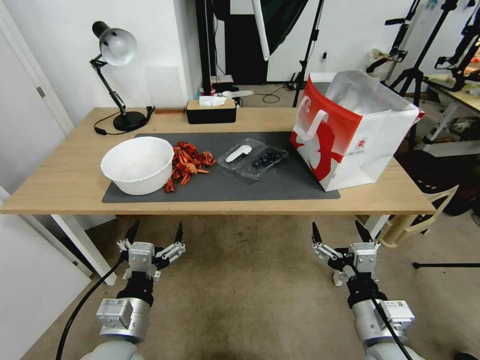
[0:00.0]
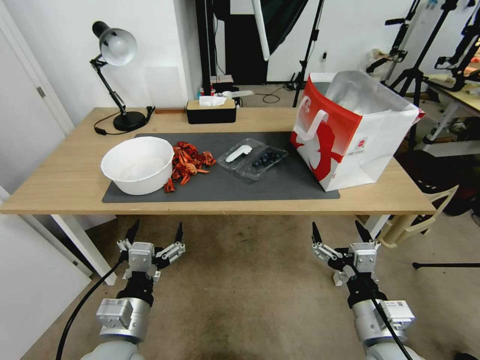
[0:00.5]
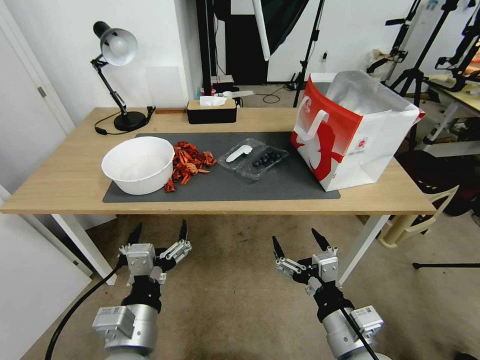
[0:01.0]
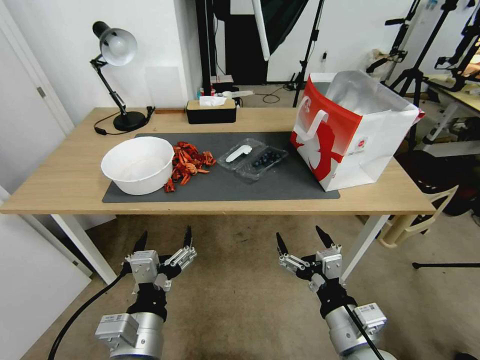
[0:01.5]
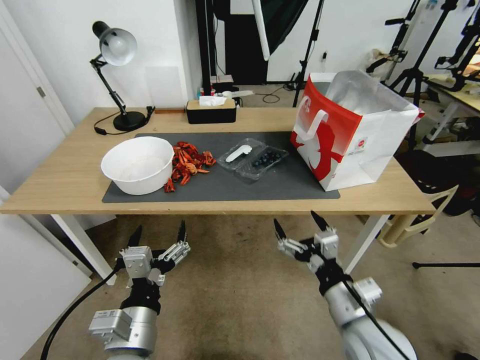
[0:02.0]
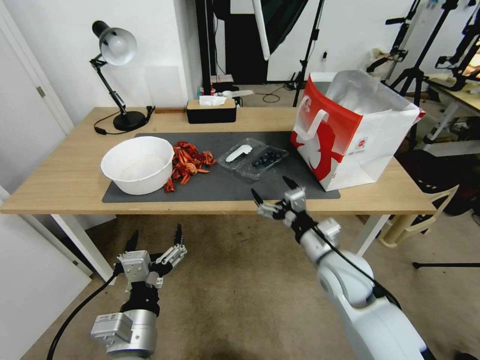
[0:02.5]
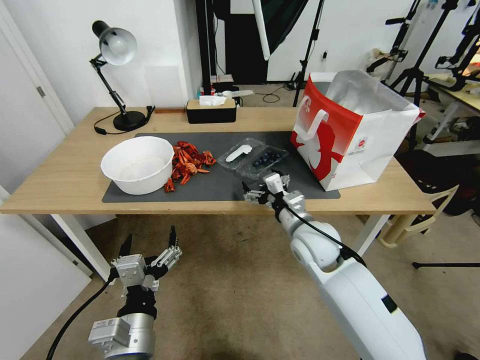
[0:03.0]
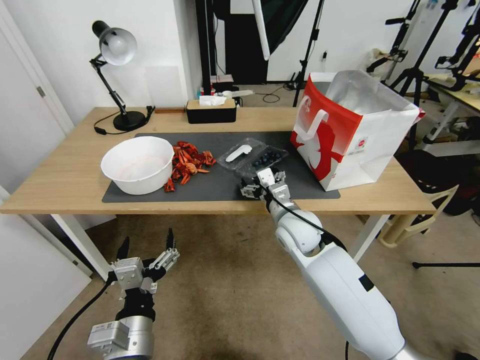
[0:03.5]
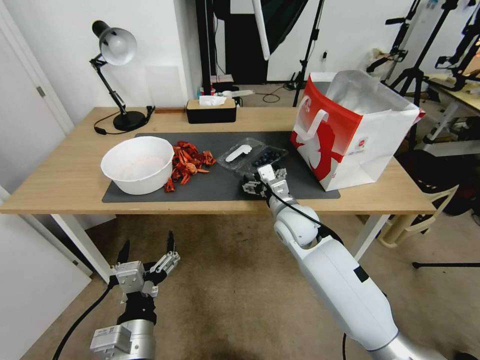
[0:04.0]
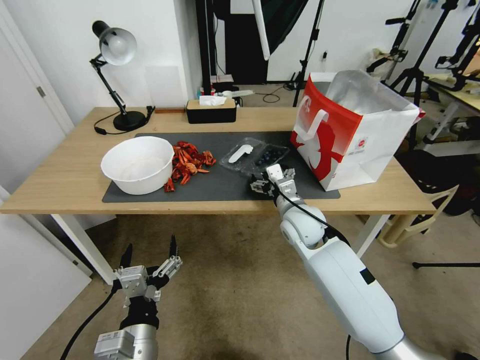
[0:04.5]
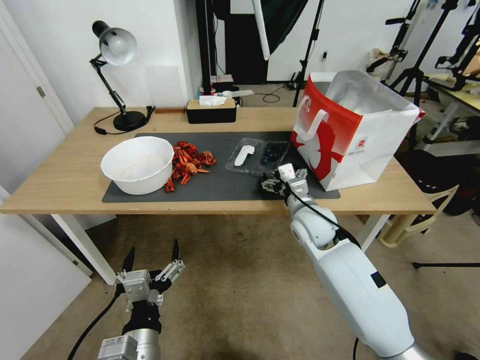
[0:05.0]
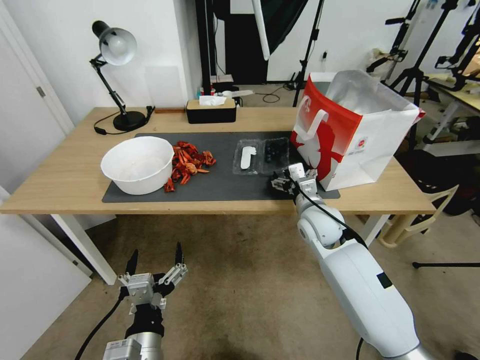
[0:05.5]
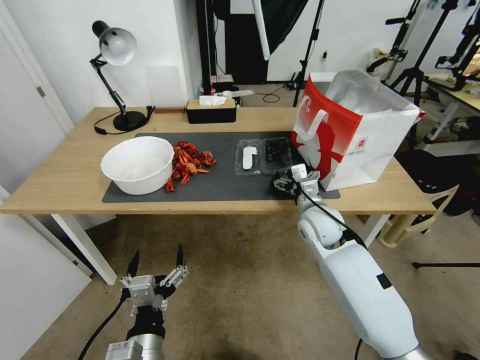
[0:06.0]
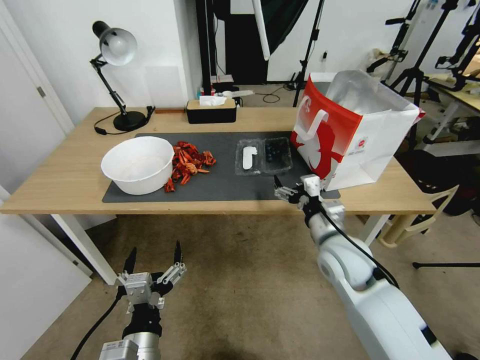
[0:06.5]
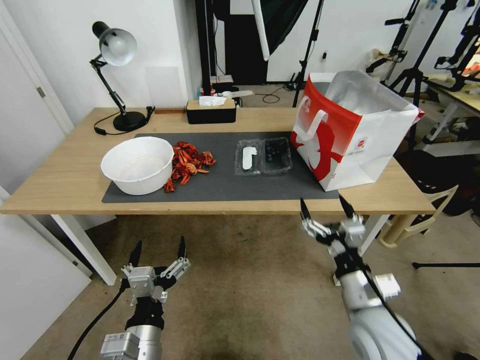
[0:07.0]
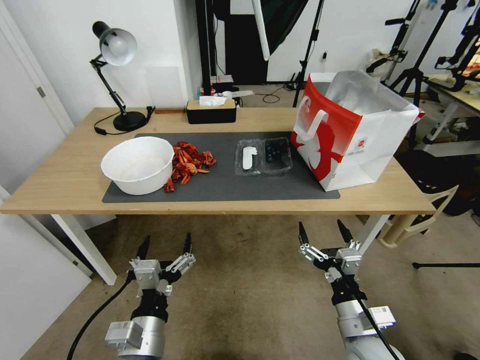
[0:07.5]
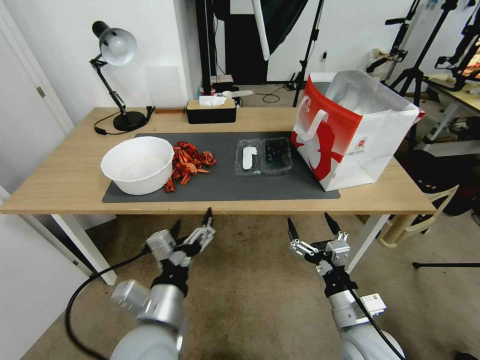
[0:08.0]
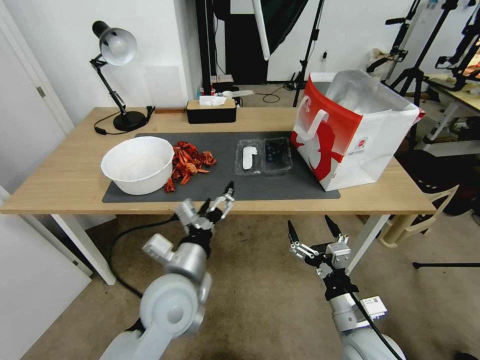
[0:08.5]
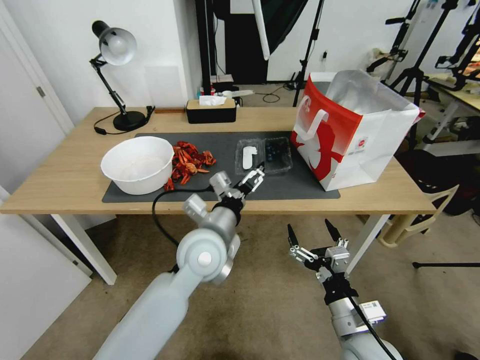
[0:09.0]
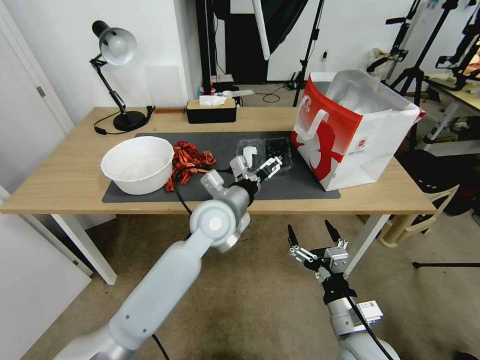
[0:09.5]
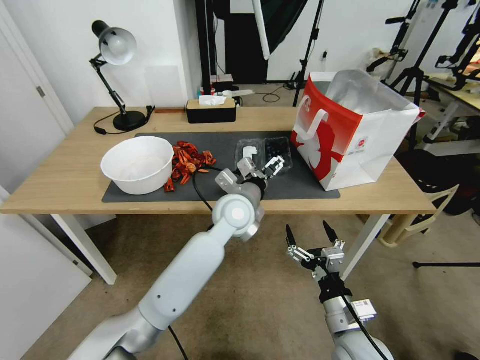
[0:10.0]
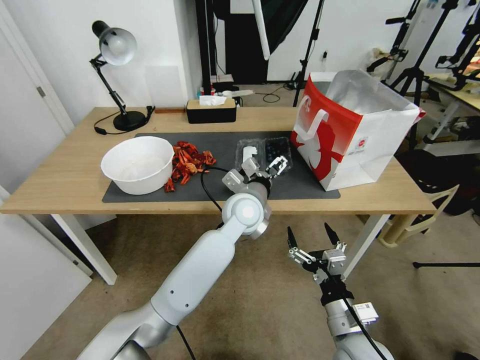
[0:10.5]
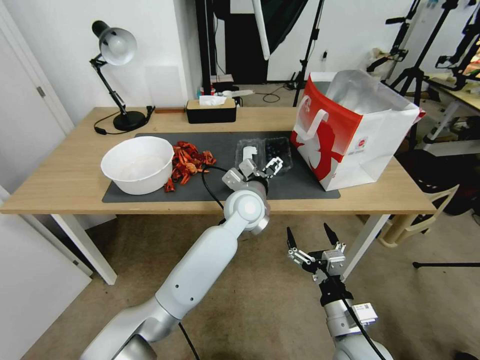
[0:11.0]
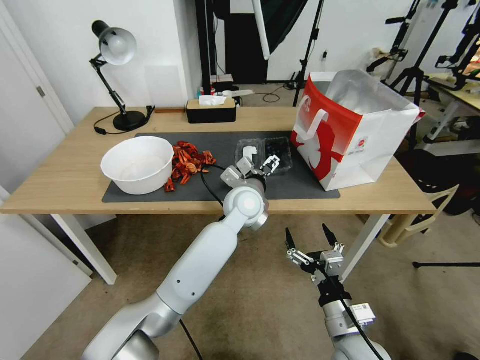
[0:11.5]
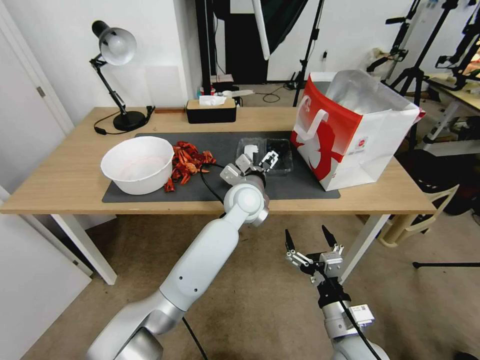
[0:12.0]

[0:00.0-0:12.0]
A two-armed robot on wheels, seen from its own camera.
Task of the whole recording: Close the takeout container lid, then place the container into the takeout bag.
0:02.0 to 0:04.0: The right gripper shifts roughly 25 cm forward.
0:04.0 to 0:06.0: The right gripper moves to the right, some 5 cm.
0:06.0 to 0:08.0: The right gripper shifts approximately 25 cm backward, while the left gripper shifts approximately 10 cm upward and forward.
0:08.0 to 0:10.0: The left gripper heads forward and to the right, covering approximately 30 cm.
0:10.0 to 0:12.0: There are only small adjustments of the grippers.

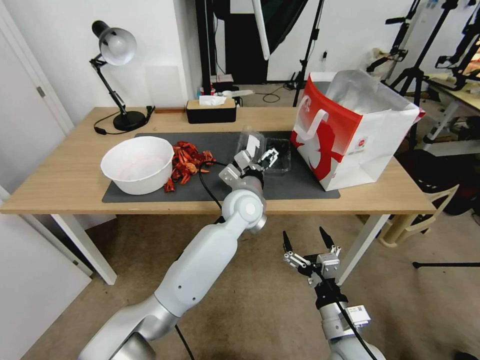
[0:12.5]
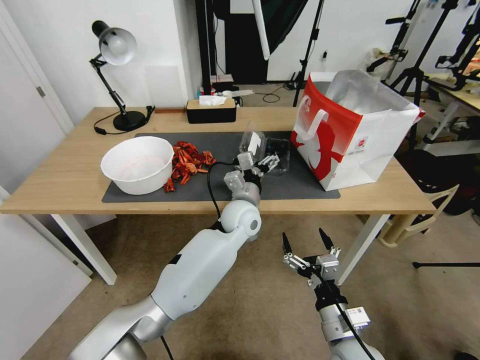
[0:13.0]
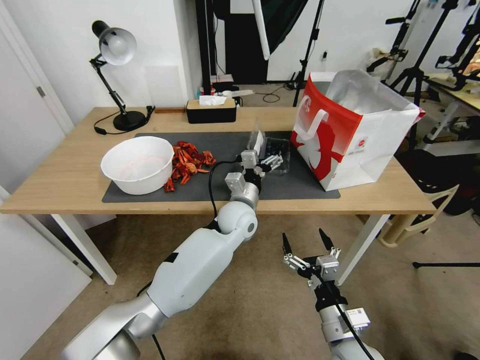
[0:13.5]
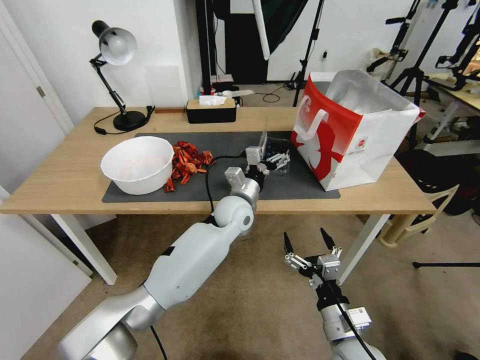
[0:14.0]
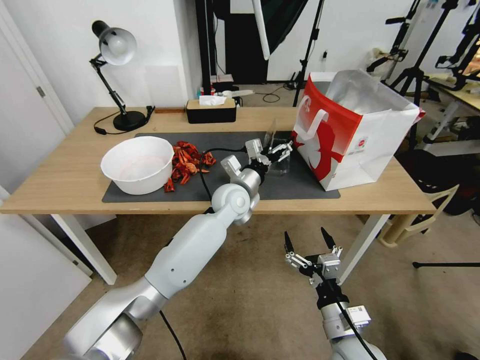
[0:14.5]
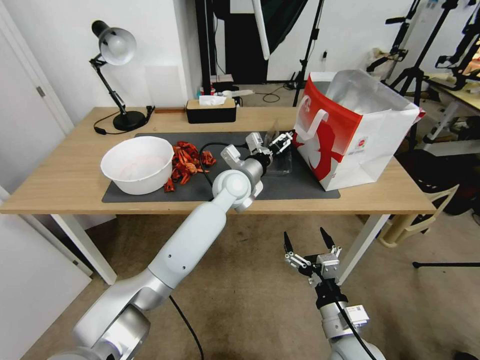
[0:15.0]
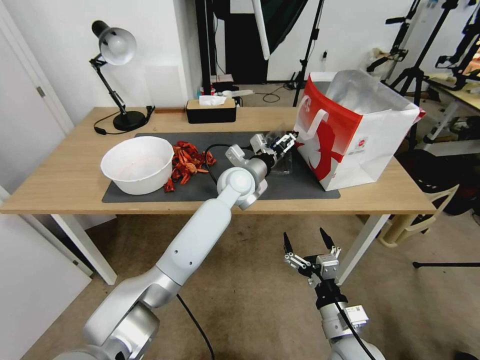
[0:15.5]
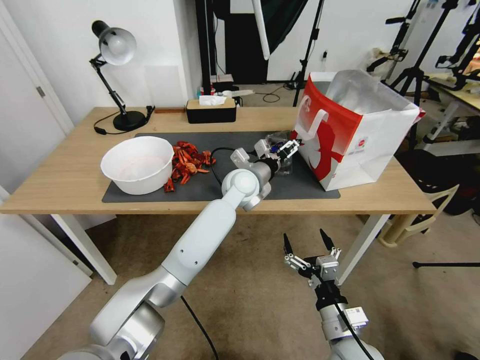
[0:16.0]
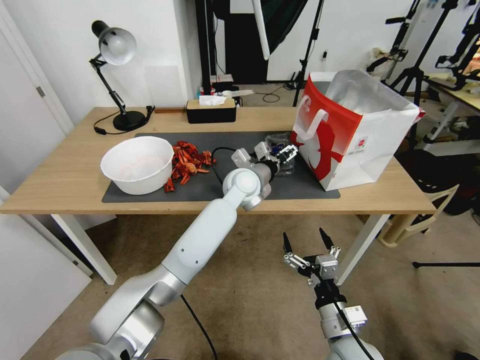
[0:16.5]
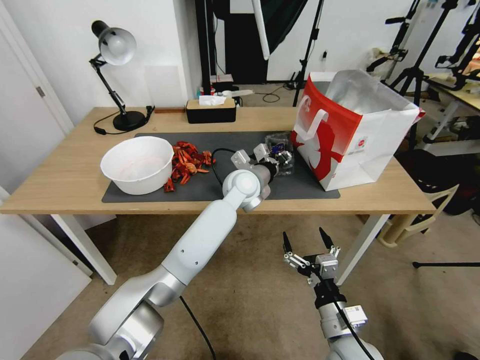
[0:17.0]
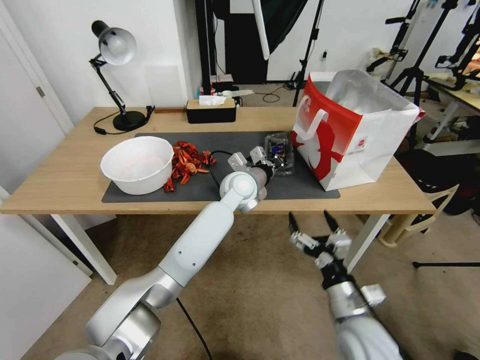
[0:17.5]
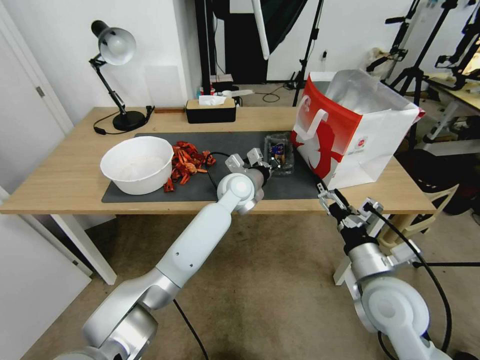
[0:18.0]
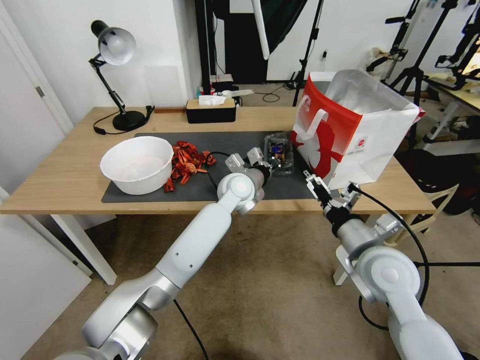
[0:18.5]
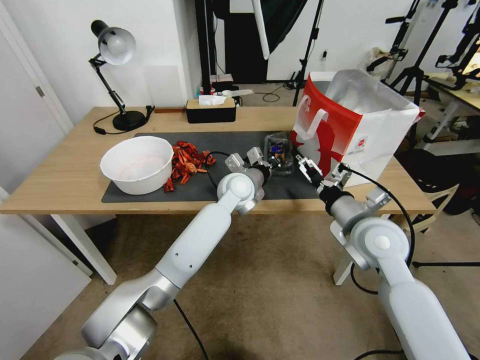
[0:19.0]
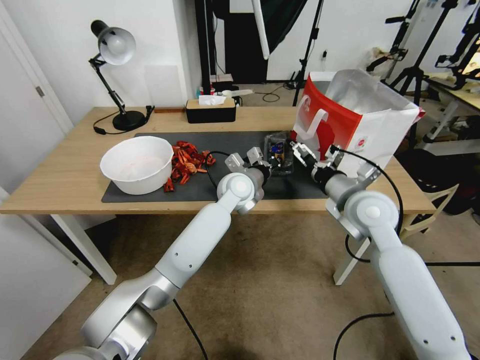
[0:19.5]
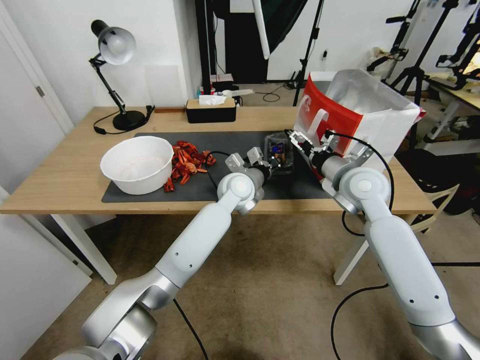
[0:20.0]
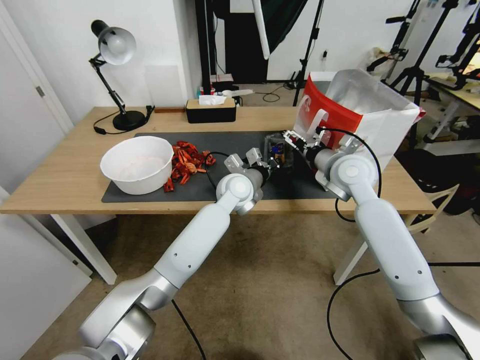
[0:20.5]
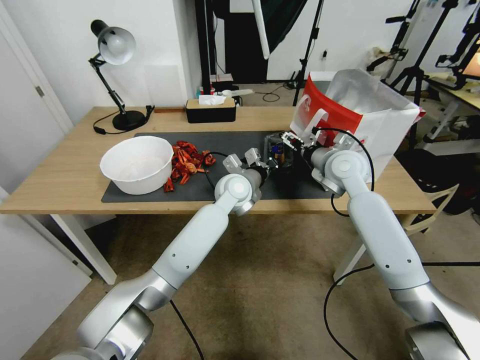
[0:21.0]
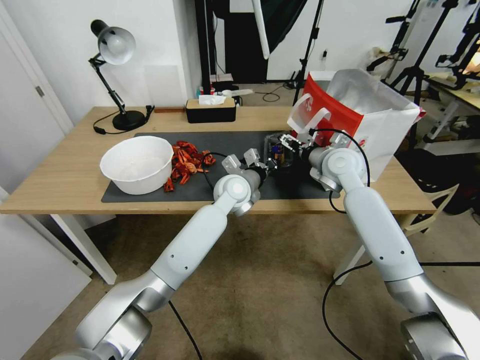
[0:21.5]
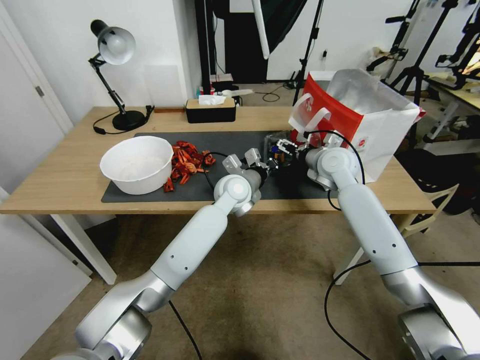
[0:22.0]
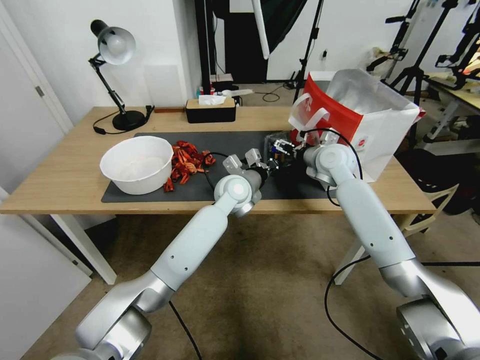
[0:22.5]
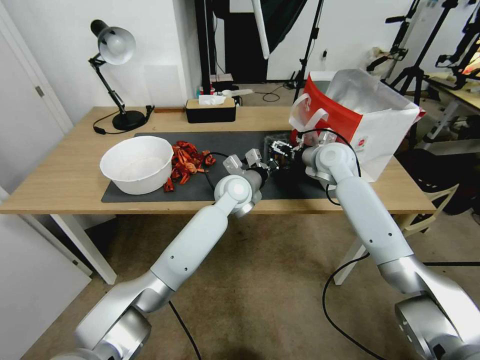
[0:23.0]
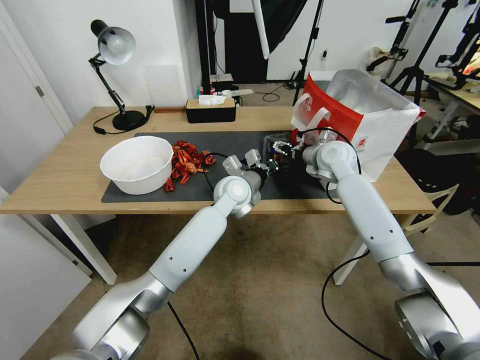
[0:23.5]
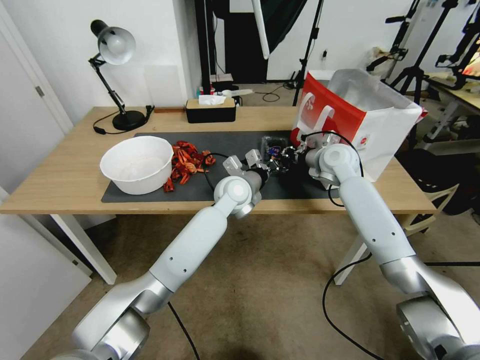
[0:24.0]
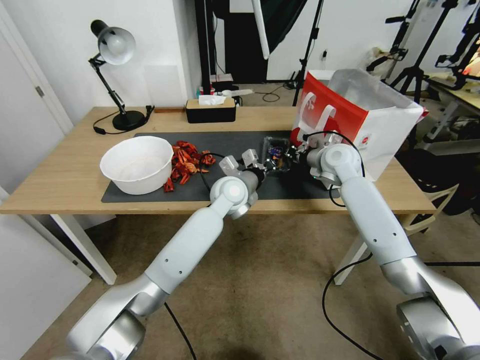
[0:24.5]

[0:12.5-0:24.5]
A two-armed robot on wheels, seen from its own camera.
Task of the whole recording: Close the takeout container lid, then place the container into the takeout bag.
0:16.5 to 0:18.5: The left gripper closes; the right gripper heads upward and forward, covering roughly 20 cm.
0:18.5 to 0:20.5: The right gripper shifts about 15 cm forward.
0:20.5 to 0:22.5: The right gripper moves forward, about 10 cm.
0:22.5 to 0:24.5: The right gripper closes its fingers.

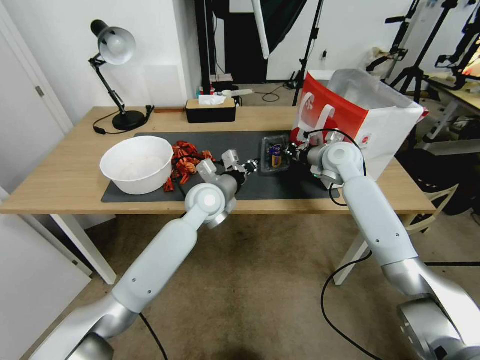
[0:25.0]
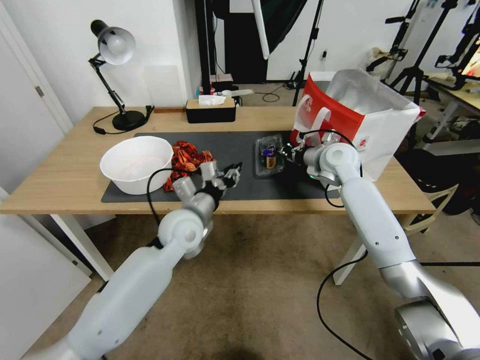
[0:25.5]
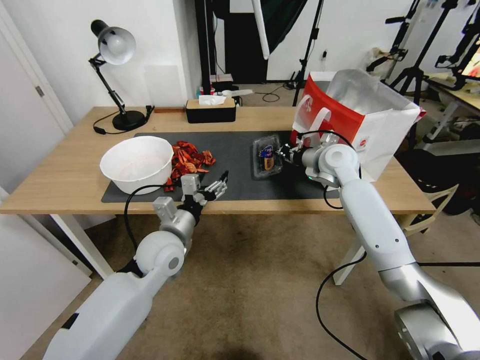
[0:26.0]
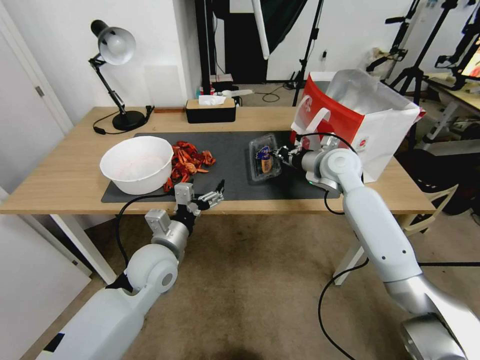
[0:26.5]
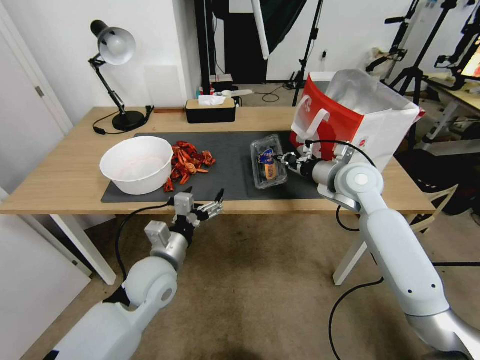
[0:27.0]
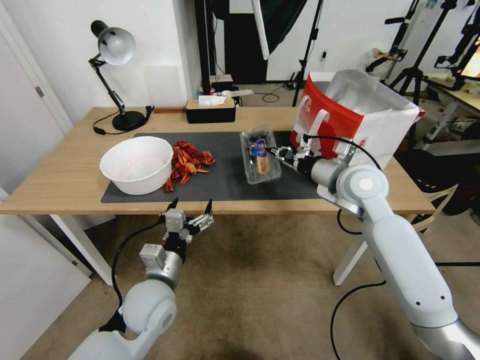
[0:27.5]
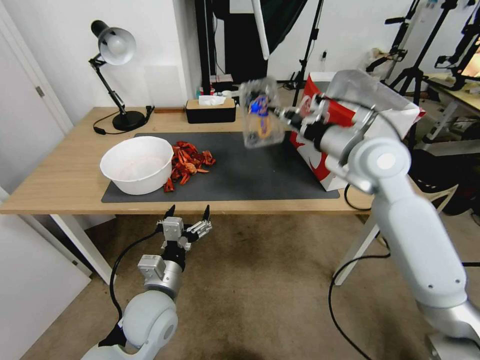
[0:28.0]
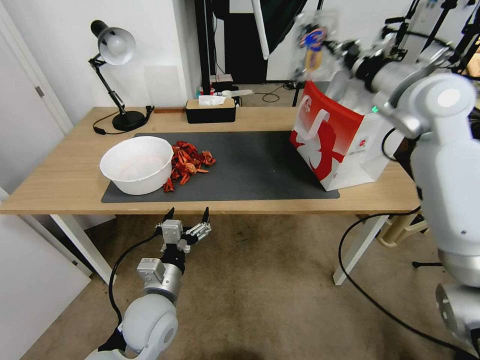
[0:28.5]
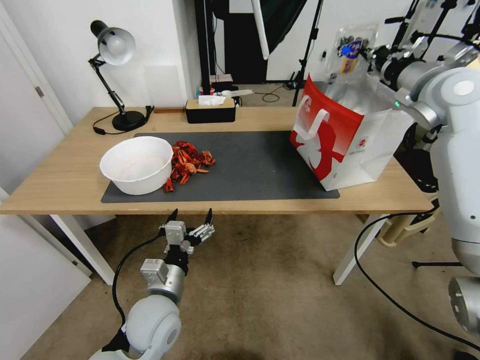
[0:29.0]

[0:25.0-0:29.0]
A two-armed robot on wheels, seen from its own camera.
Task of the whole recording: Close the takeout container lid, then place the container into the takeout bag.
0:25.0 to 0:27.0: The right gripper moves backward, roughly 10 cm. Meanwhile the left gripper heads backward and to the left, covering about 20 cm, and opens its fingers.
0:27.0 to 0:29.0: The right gripper heads upward and to the right, covering roughly 20 cm, while the left gripper goes some 5 cm backward.
